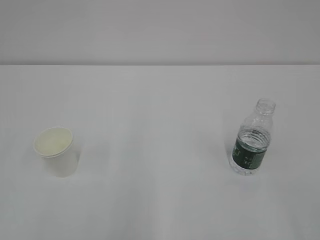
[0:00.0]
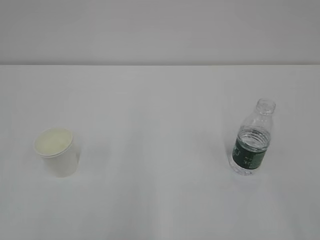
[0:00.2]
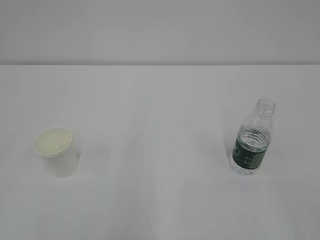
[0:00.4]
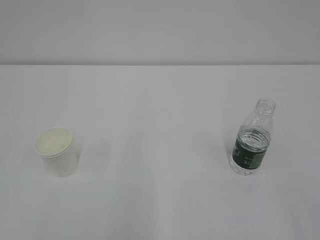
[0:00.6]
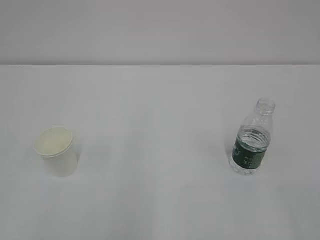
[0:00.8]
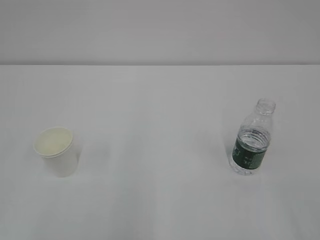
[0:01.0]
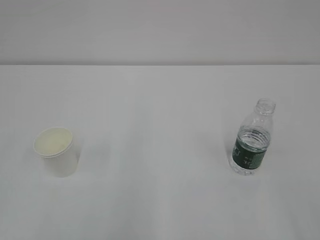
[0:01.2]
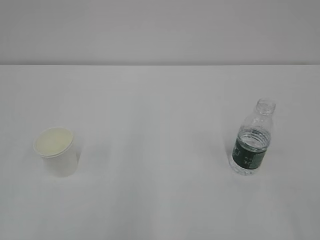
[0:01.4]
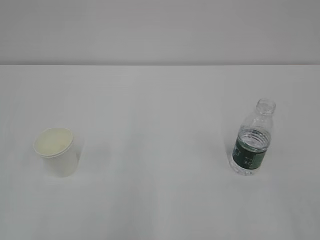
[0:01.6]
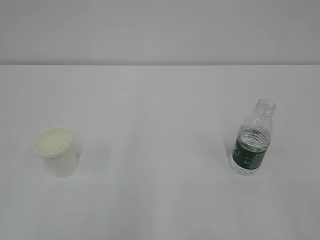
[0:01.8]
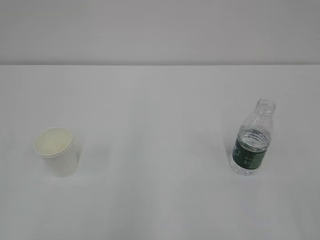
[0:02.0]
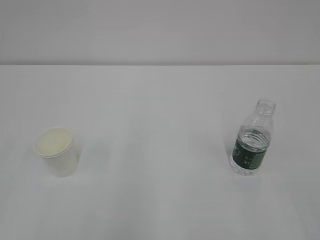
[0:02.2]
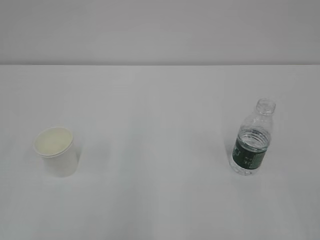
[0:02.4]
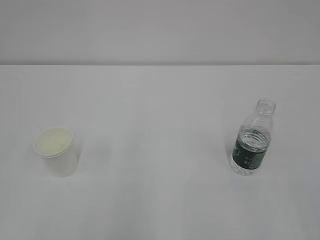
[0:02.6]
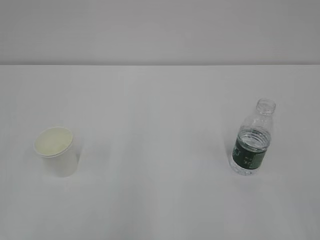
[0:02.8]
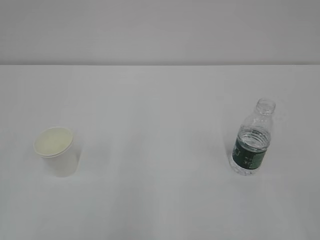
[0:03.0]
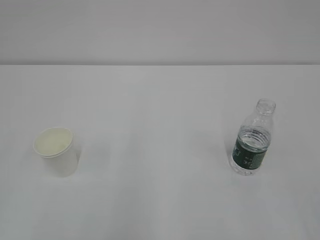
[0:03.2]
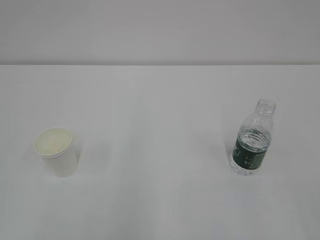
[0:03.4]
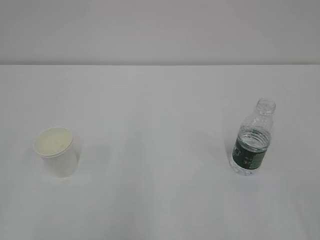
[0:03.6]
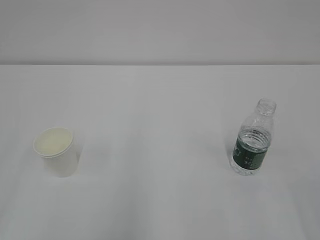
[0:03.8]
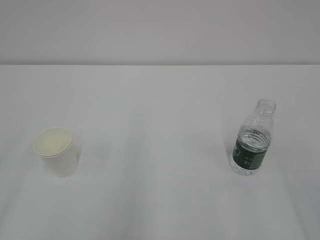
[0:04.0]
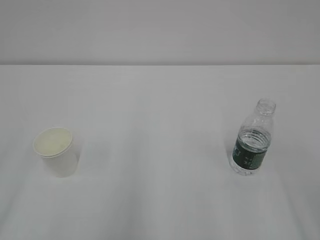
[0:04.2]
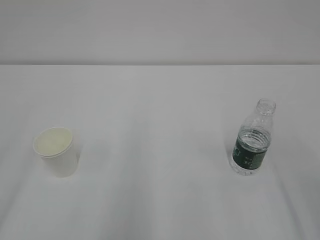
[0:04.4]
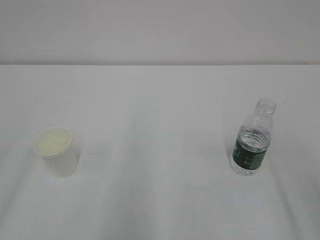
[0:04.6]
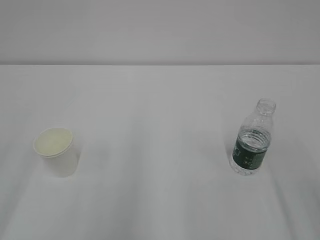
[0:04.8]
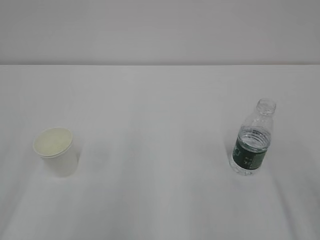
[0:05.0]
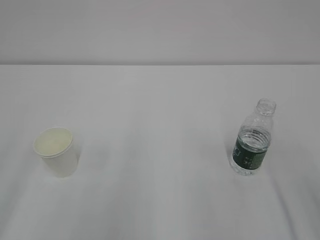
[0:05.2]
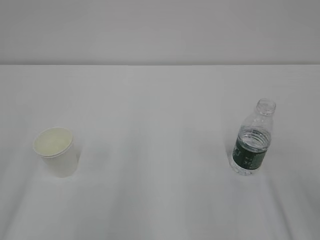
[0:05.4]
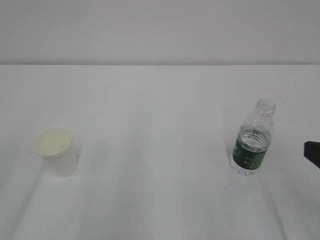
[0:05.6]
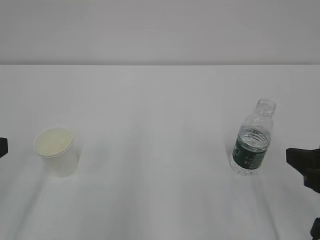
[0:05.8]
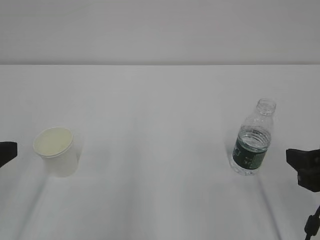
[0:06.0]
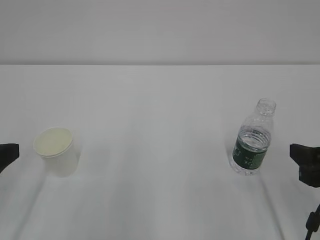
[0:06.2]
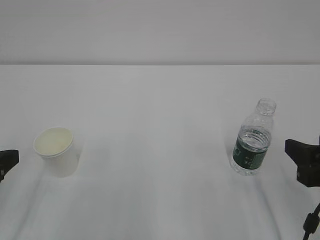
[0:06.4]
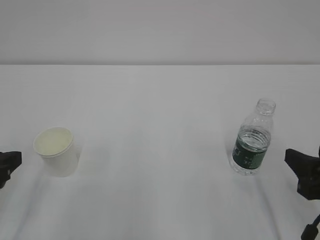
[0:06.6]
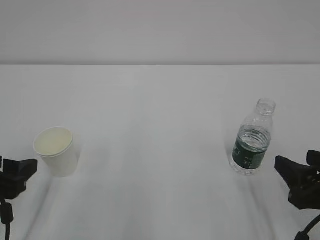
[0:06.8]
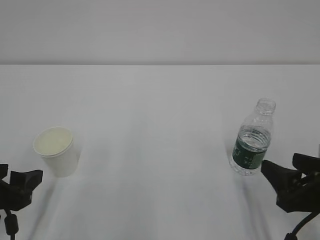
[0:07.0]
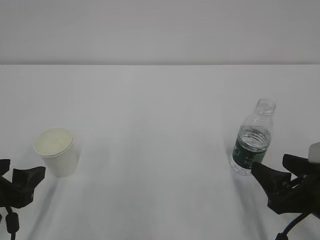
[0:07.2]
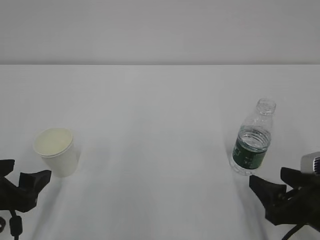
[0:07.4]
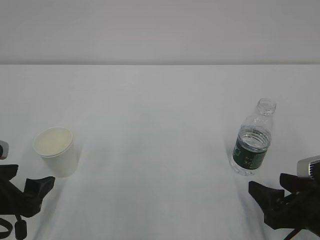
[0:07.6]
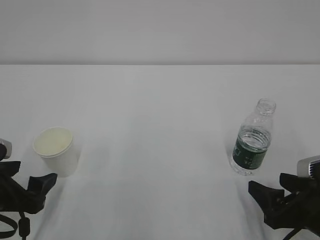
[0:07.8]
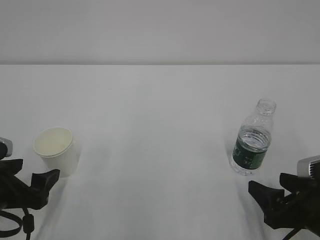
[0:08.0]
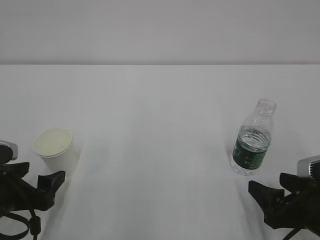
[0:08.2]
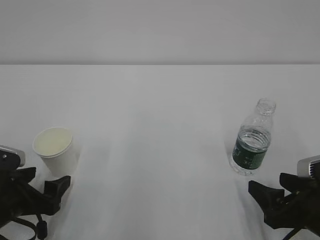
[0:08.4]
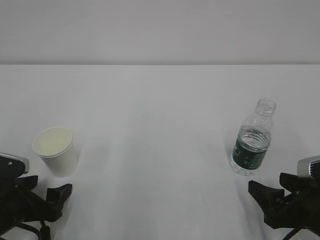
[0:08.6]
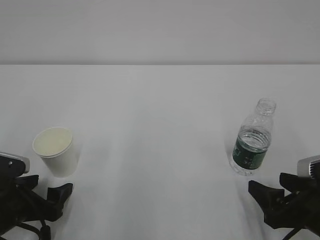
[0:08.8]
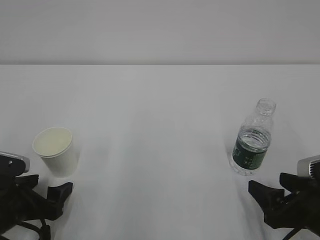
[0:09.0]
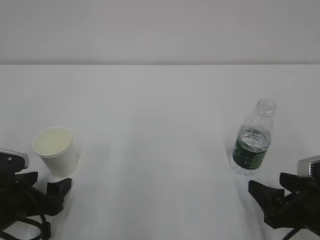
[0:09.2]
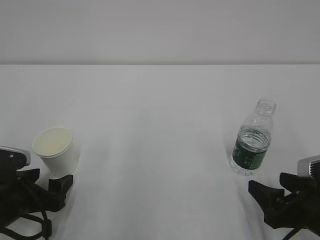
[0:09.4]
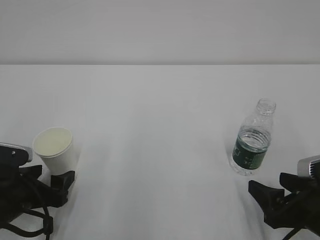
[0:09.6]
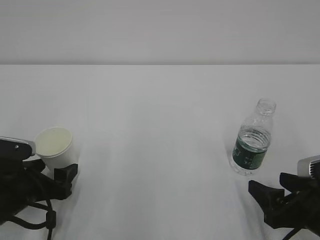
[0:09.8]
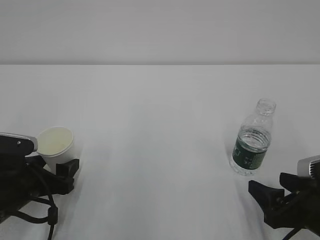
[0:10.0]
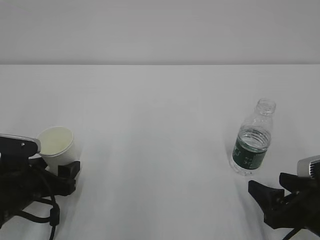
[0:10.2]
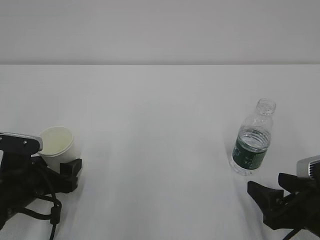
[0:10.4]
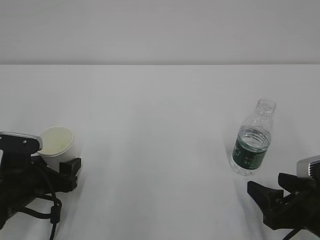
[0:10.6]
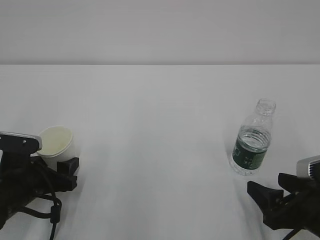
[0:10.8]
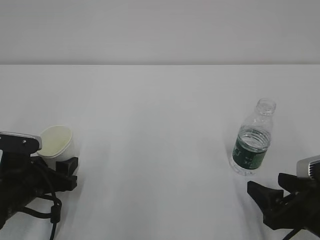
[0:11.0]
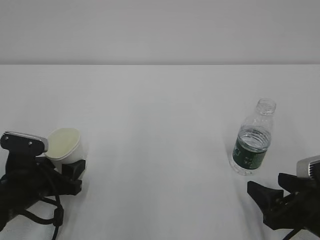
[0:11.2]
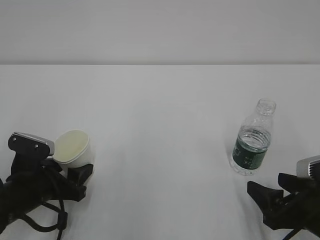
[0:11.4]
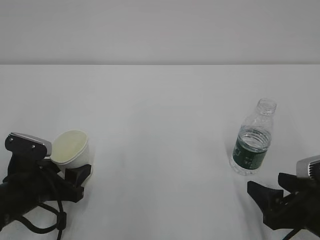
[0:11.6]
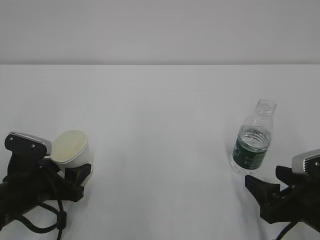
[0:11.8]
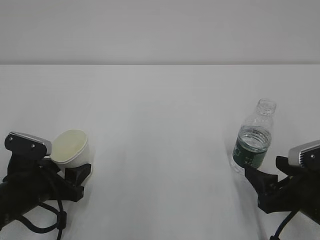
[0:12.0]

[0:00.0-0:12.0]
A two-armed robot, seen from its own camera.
0:04.4 to 0:06.0: The right gripper travels downward and forward by about 15 cm.
0:06.0 to 0:07.6: Both grippers travel together downward, some 10 cm. The right gripper opens its fingers.
0:07.6 to 0:09.0: The left gripper goes roughly 5 cm downward.
0:09.0 to 0:10.4: The grippers move only a little.
0:10.4 to 0:12.0: The left gripper closes.

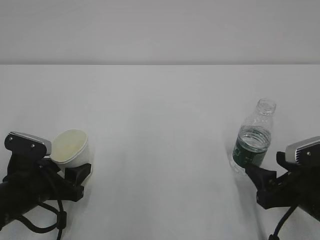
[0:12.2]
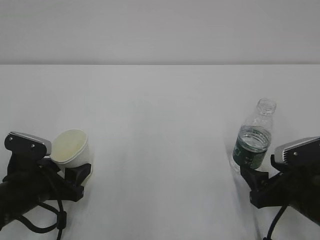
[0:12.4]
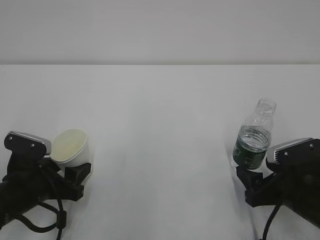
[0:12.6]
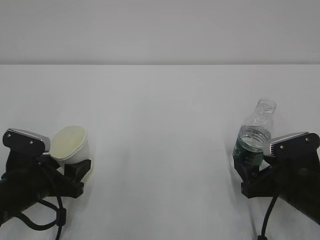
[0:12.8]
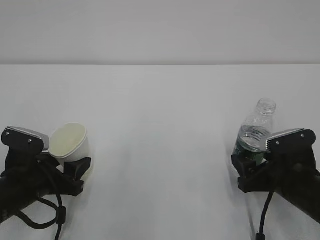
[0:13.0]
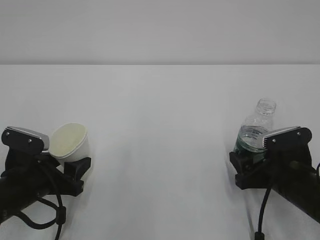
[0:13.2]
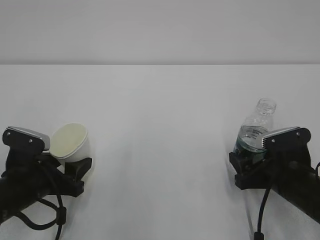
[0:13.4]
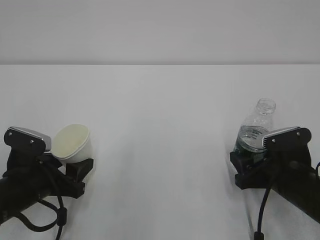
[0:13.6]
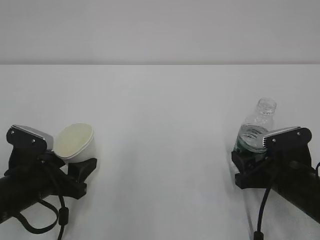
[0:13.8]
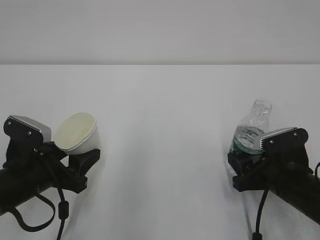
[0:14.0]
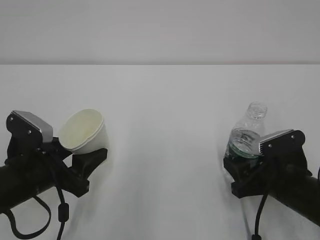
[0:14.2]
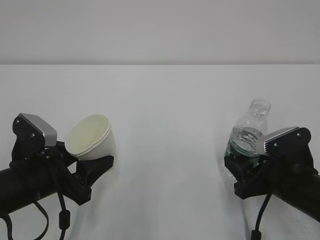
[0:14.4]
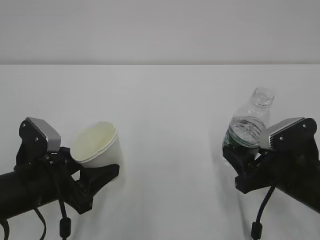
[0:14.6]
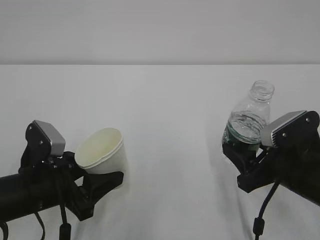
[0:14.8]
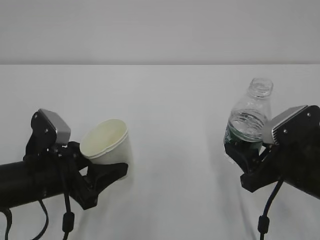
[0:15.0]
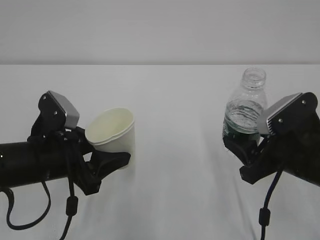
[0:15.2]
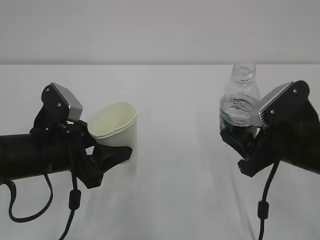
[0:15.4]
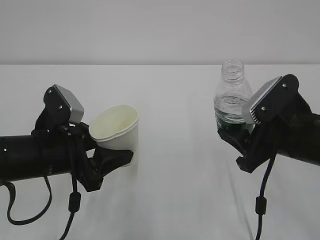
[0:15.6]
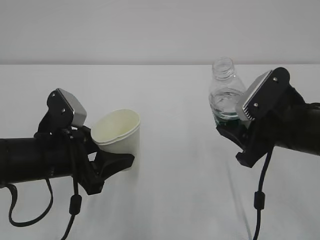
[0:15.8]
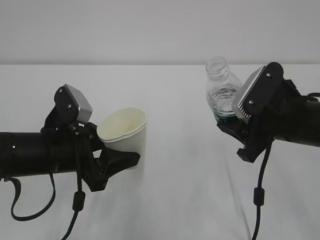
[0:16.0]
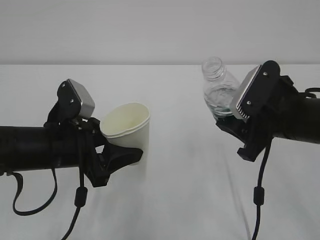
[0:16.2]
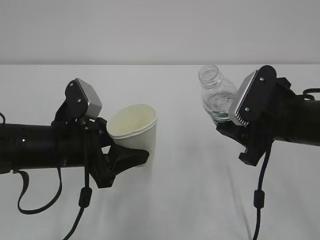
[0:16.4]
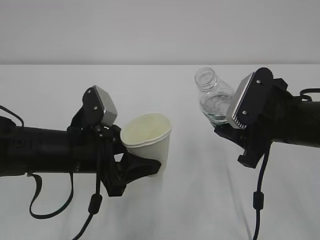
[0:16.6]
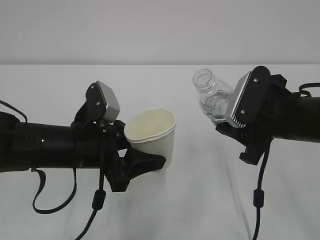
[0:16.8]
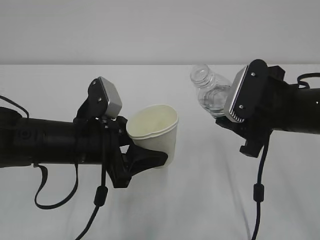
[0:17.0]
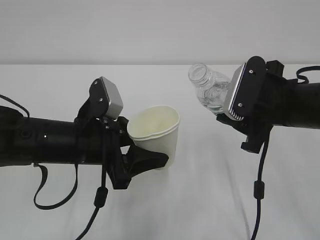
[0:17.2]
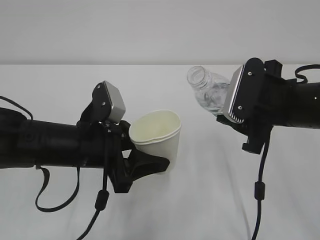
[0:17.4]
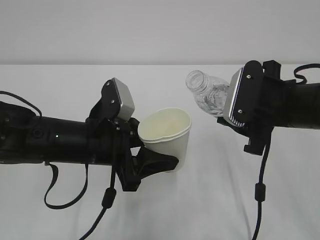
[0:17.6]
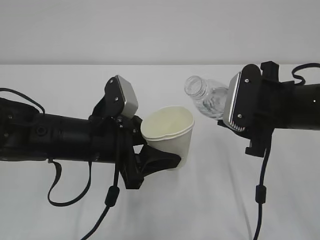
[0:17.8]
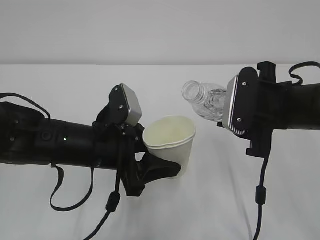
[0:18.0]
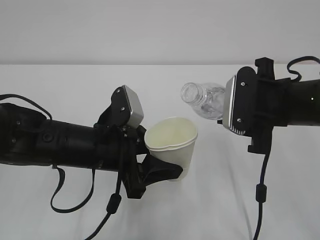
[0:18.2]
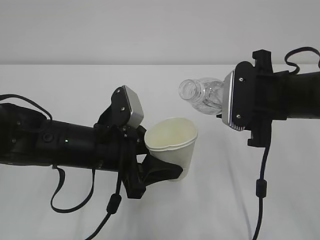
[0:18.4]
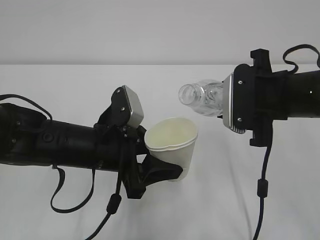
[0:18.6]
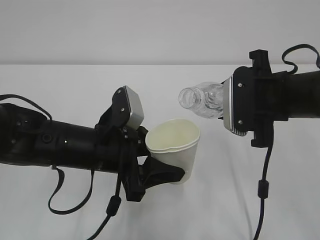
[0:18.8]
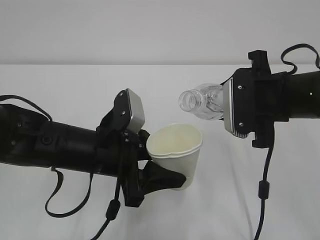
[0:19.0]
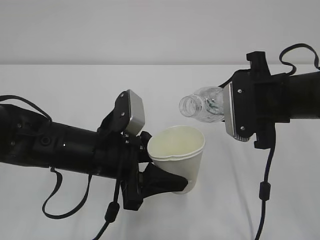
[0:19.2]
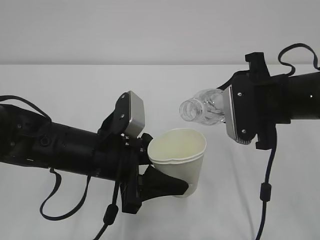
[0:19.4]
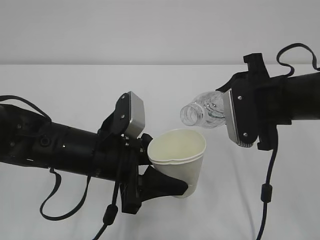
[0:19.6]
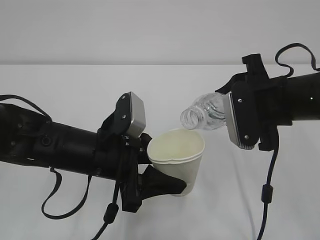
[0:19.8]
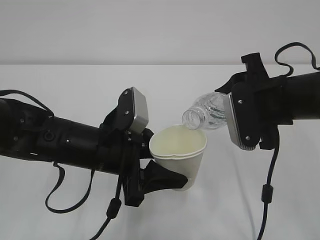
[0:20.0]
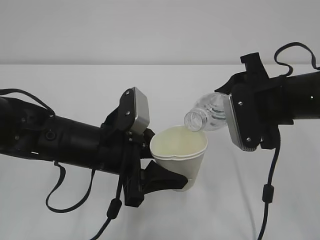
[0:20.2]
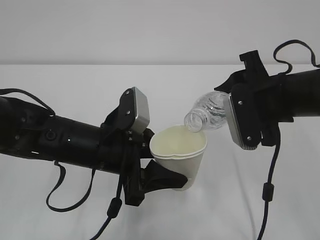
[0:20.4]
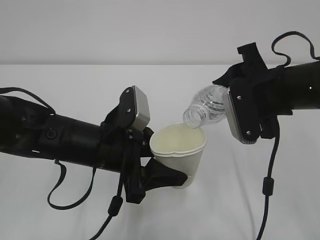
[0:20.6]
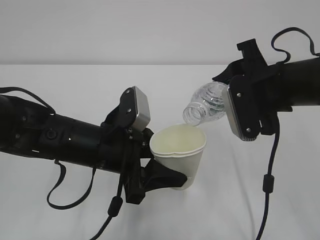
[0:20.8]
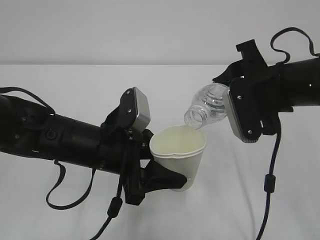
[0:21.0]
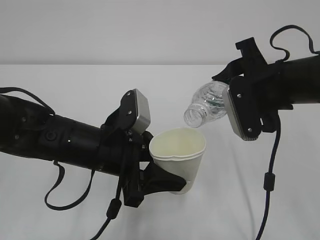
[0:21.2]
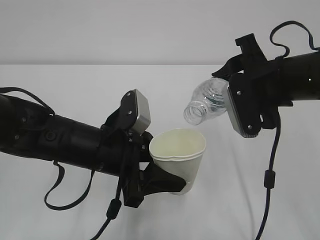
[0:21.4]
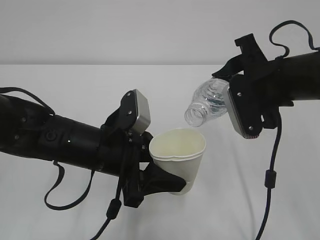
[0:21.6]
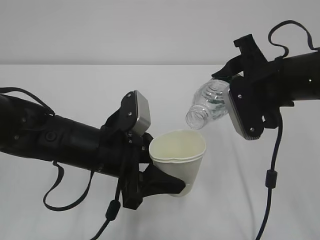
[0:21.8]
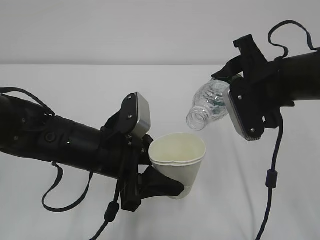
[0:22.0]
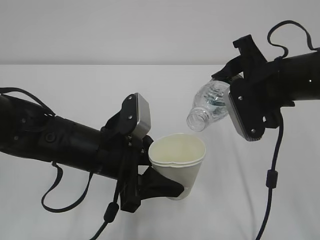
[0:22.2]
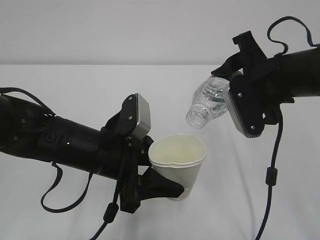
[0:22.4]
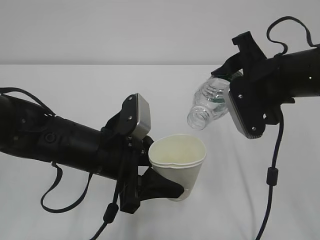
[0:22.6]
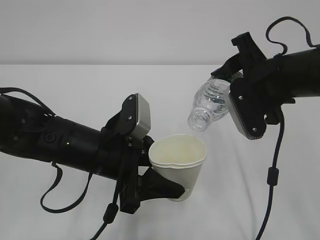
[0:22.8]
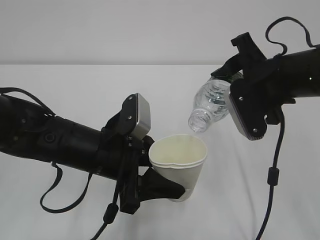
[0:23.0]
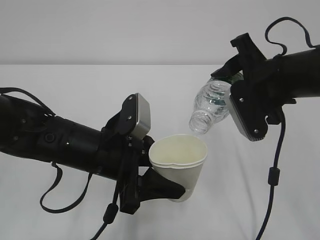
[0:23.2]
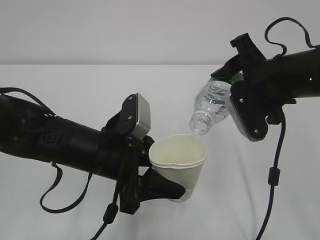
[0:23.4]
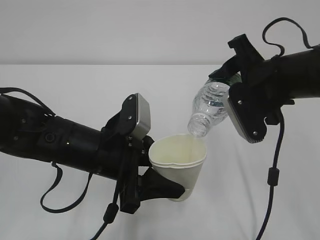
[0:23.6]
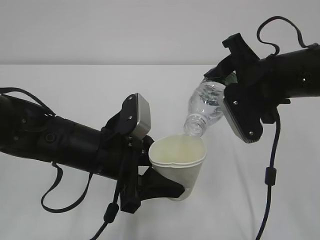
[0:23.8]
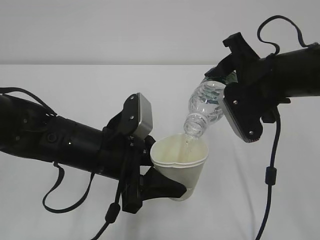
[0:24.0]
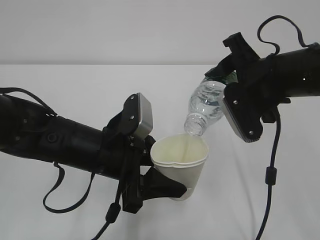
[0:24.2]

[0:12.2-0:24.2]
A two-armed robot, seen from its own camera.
0:12.2 to 0:13.8: The right gripper moves forward, about 5 cm, and closes up.
0:13.8 to 0:15.2: The two grippers go roughly 10 cm upward.
0:15.2 to 0:16.6: The right gripper shifts by roughly 5 cm.
0:18.2 to 0:19.8: The grippers make only small movements.
0:19.8 to 0:22.6: The grippers make only small movements.
0:22.6 to 0:24.2: The grippers move only a little.
